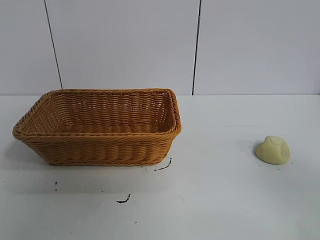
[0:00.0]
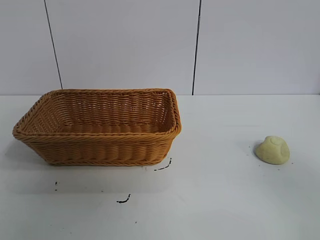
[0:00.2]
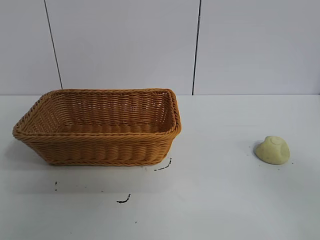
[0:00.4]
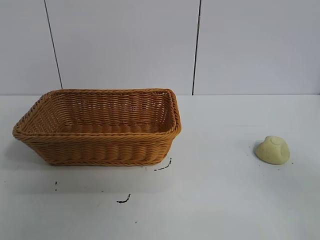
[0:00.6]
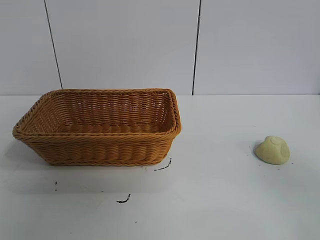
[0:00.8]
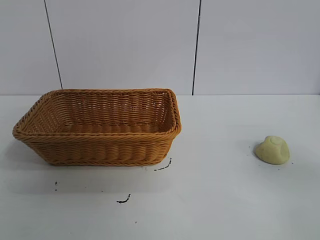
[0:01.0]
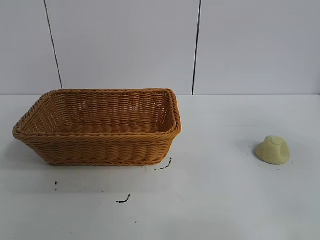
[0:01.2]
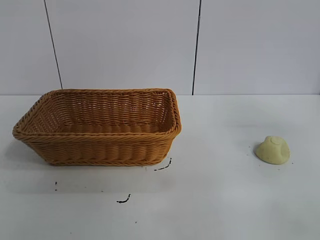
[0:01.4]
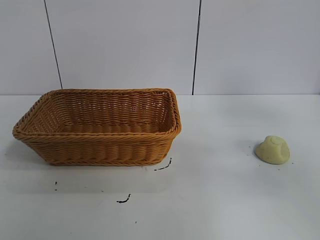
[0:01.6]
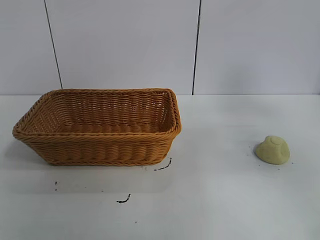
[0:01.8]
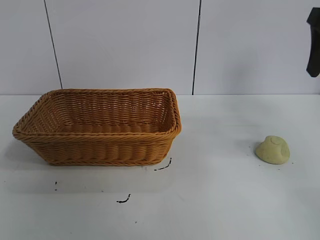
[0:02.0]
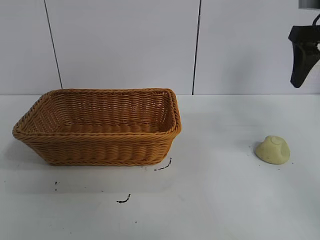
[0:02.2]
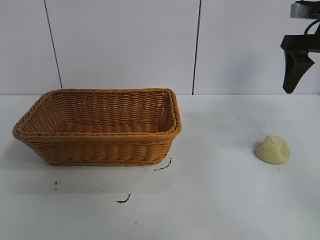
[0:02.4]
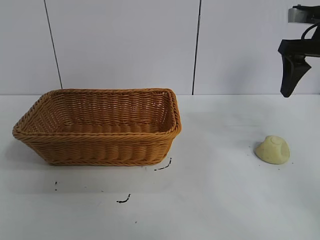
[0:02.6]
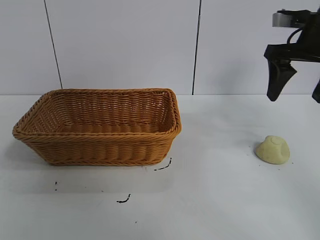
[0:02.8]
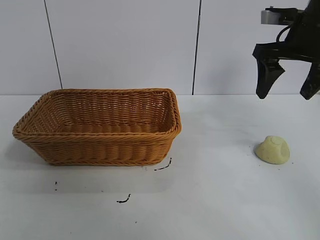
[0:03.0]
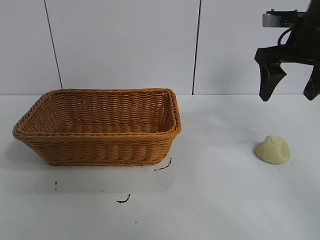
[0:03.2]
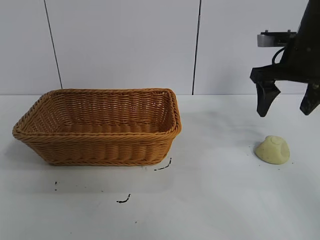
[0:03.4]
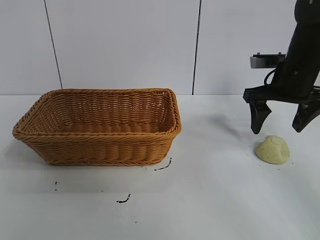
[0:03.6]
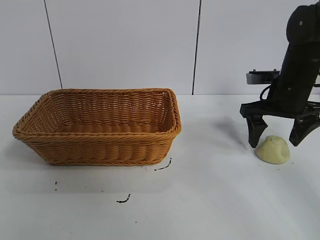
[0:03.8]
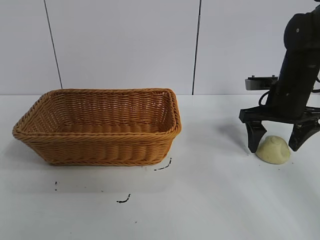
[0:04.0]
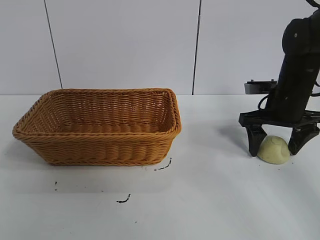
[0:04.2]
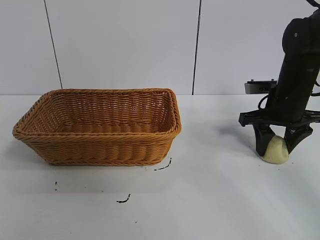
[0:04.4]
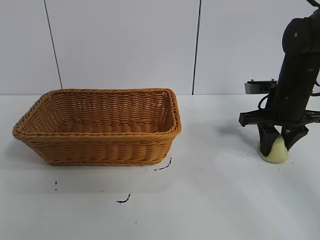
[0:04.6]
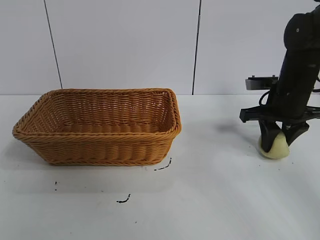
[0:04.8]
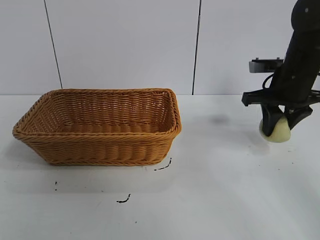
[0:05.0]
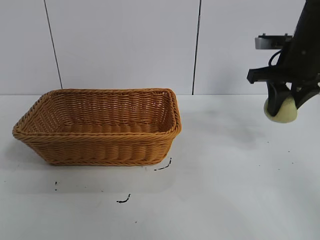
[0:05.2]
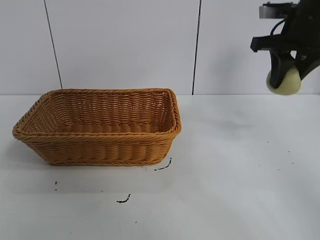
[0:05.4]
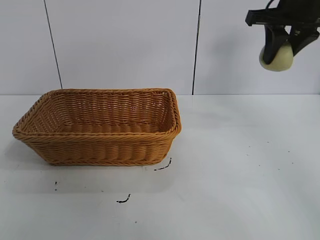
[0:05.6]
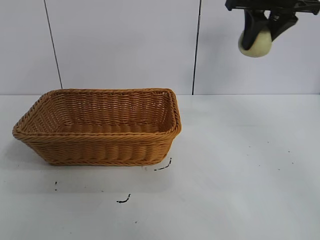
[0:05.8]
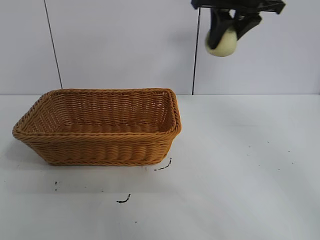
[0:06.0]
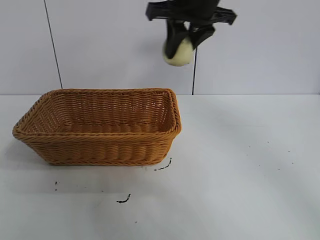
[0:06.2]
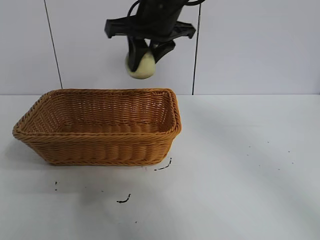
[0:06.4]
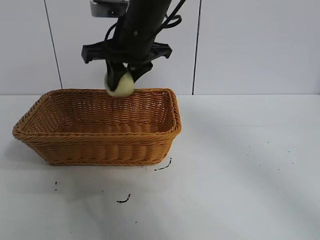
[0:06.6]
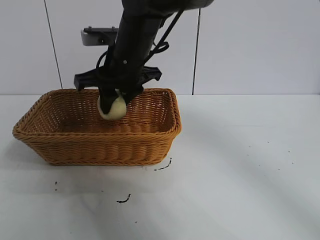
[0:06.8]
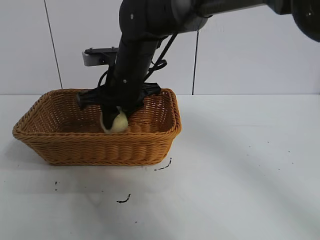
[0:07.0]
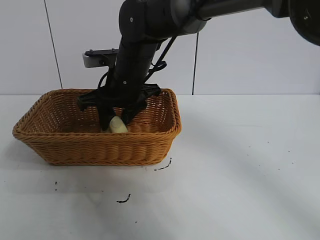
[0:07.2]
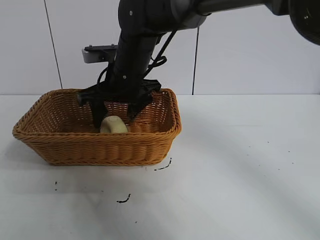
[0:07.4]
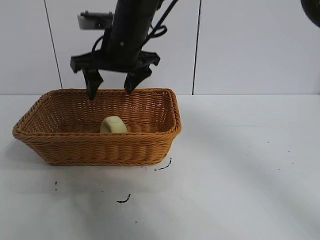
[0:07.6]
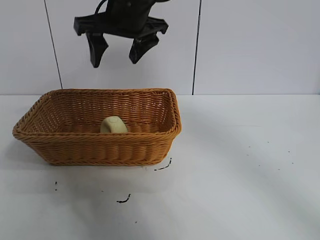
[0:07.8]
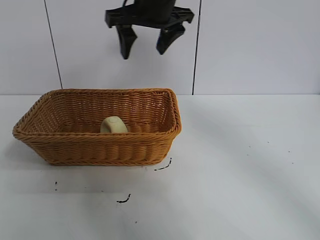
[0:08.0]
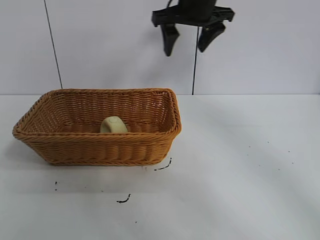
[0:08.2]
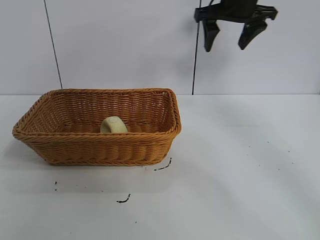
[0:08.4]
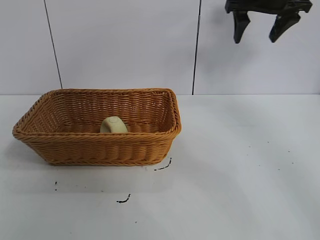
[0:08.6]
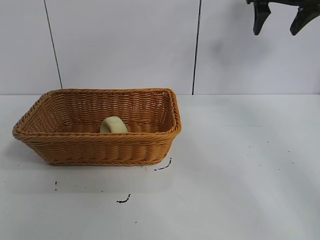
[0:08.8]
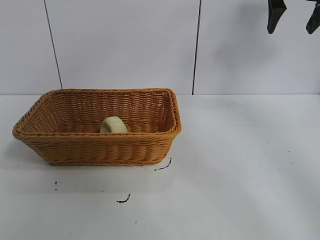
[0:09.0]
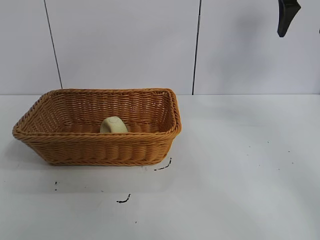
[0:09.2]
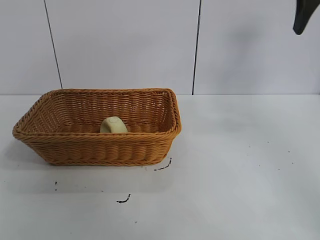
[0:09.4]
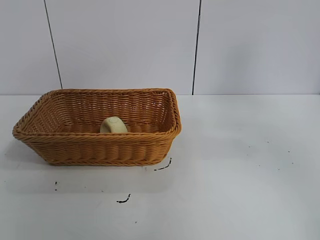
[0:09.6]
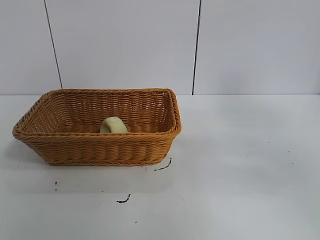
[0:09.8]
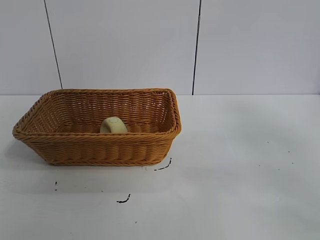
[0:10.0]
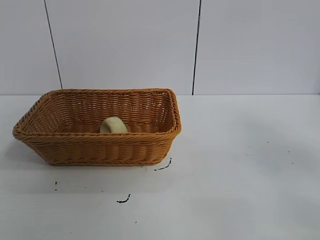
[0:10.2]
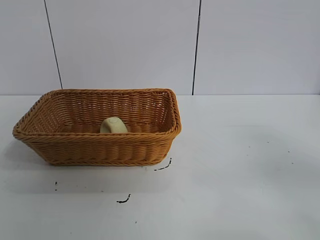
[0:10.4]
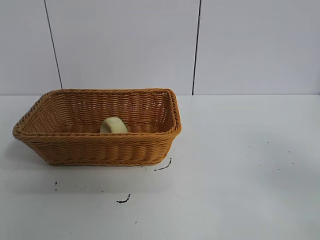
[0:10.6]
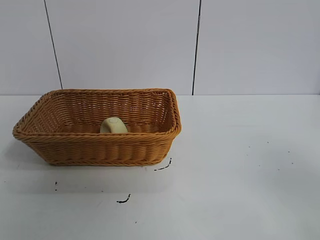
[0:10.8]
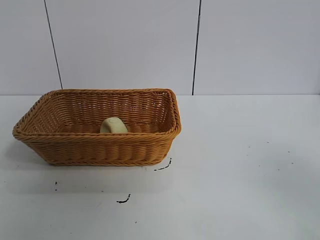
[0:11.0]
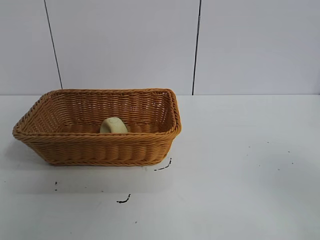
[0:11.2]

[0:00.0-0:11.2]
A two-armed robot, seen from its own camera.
Task of the whole recording: pick up the egg yolk pastry and put it into the basket.
Step, 0:00.8 to 0:04.4: Grasp egg yolk pastry with right gripper.
Step, 0:04.6 to 0:07.2: Place the egg yolk pastry in the basket with right gripper.

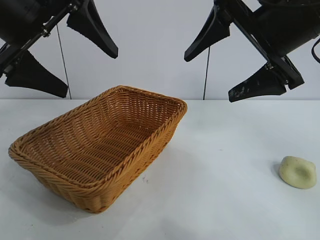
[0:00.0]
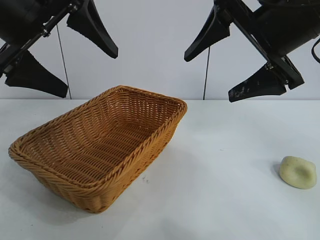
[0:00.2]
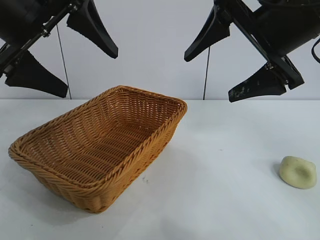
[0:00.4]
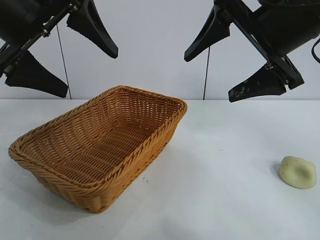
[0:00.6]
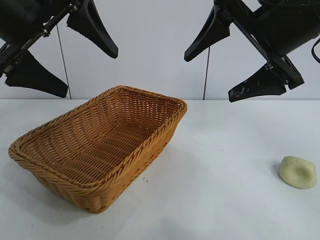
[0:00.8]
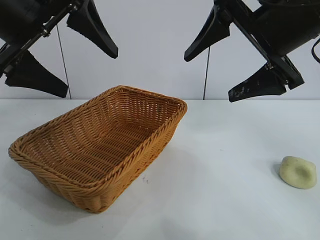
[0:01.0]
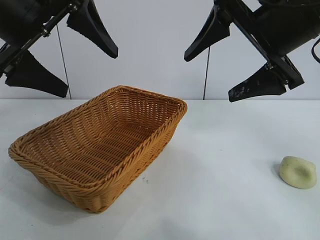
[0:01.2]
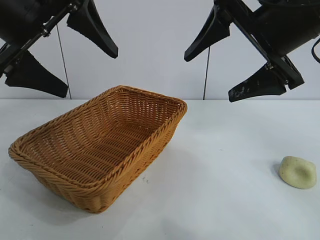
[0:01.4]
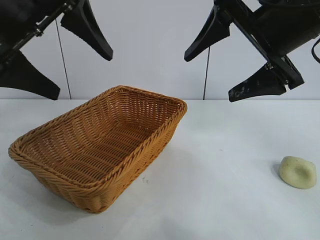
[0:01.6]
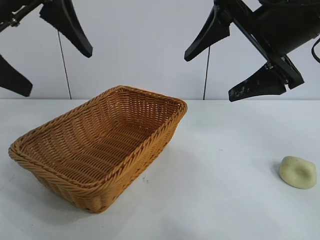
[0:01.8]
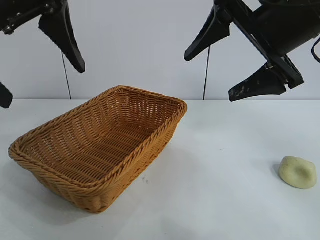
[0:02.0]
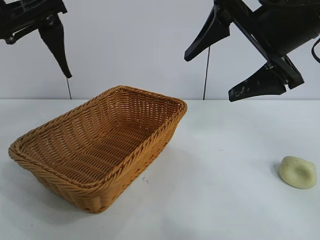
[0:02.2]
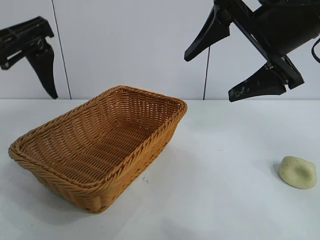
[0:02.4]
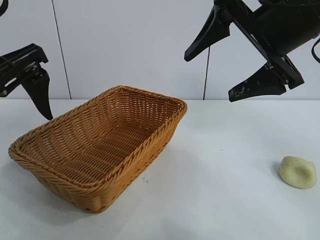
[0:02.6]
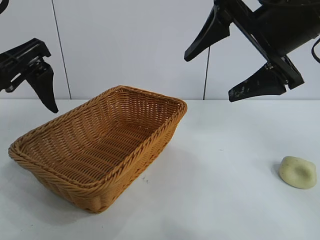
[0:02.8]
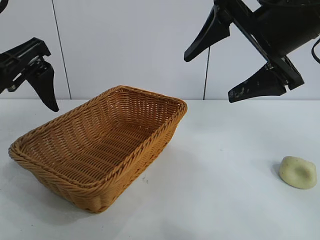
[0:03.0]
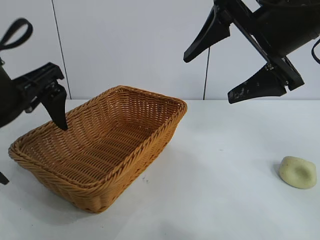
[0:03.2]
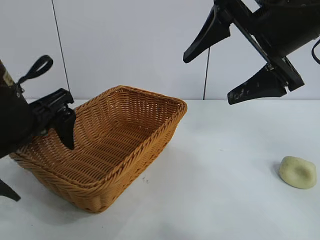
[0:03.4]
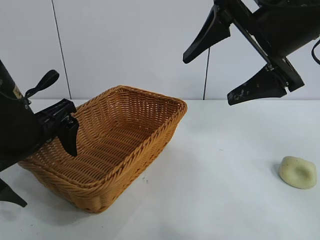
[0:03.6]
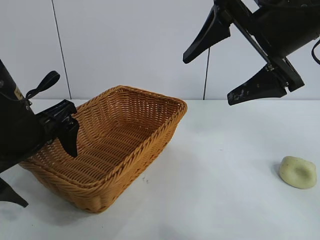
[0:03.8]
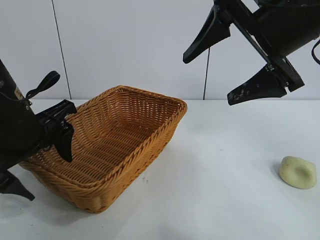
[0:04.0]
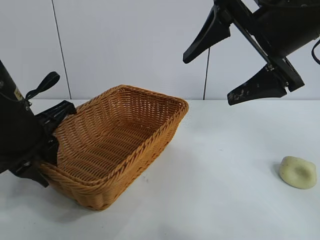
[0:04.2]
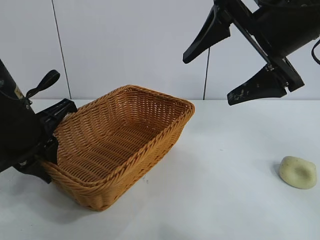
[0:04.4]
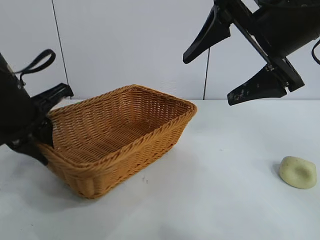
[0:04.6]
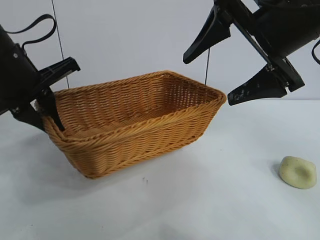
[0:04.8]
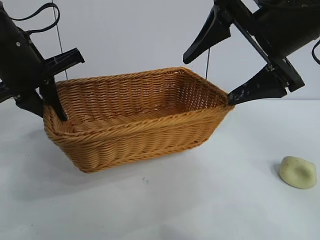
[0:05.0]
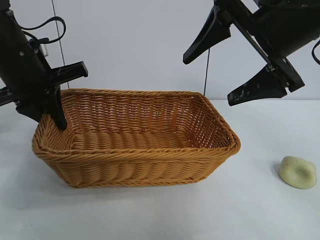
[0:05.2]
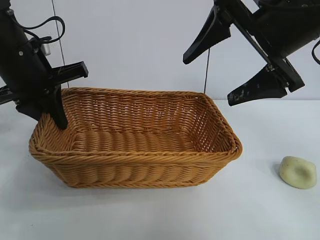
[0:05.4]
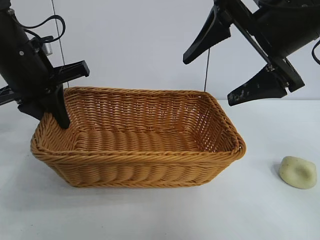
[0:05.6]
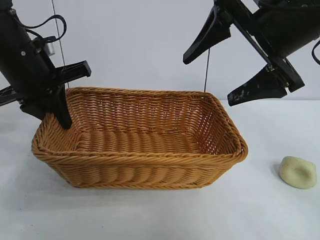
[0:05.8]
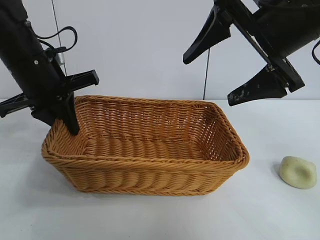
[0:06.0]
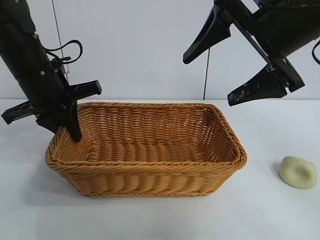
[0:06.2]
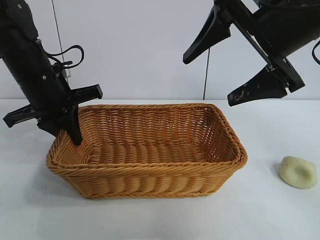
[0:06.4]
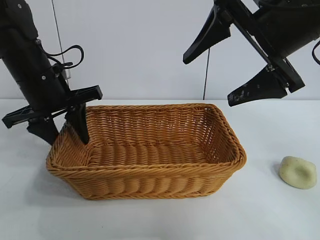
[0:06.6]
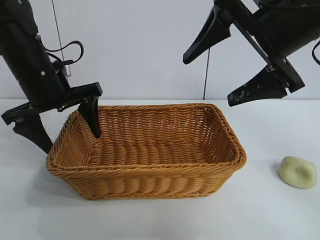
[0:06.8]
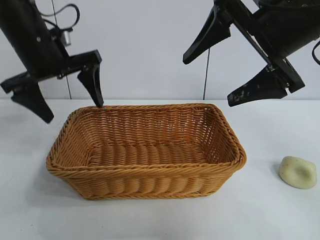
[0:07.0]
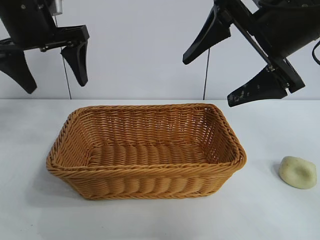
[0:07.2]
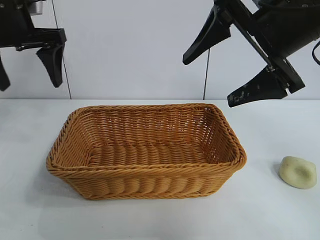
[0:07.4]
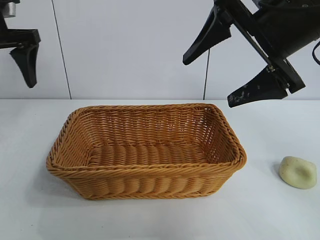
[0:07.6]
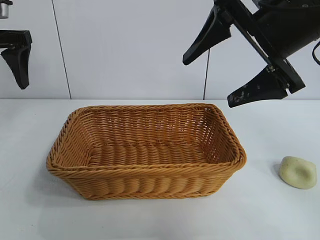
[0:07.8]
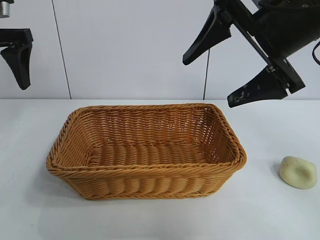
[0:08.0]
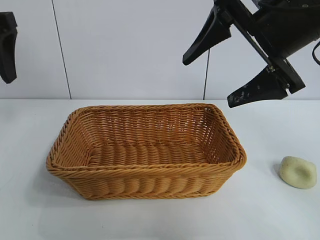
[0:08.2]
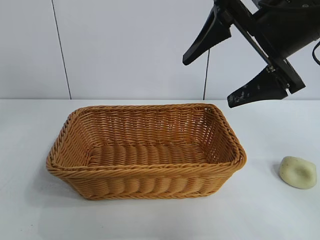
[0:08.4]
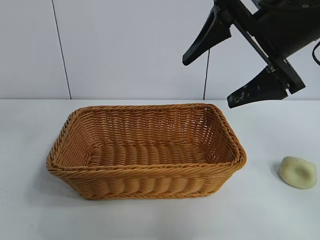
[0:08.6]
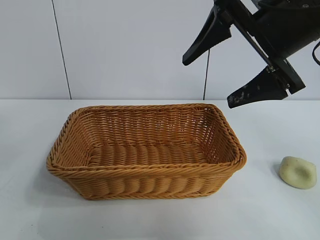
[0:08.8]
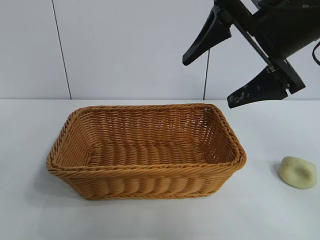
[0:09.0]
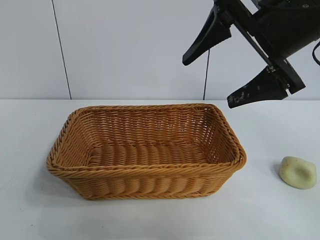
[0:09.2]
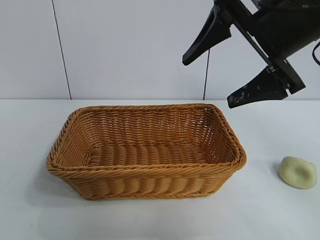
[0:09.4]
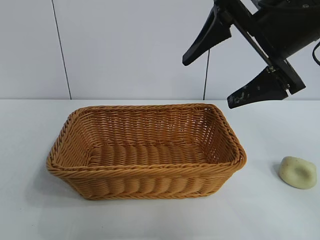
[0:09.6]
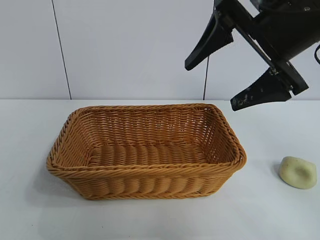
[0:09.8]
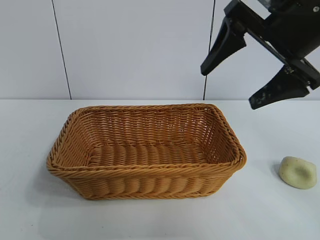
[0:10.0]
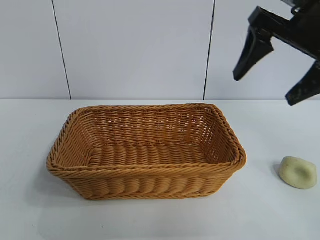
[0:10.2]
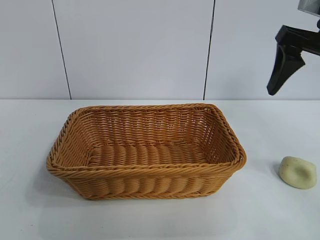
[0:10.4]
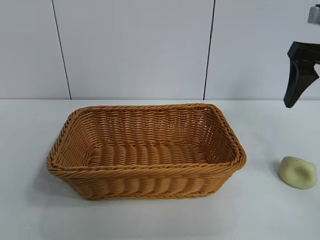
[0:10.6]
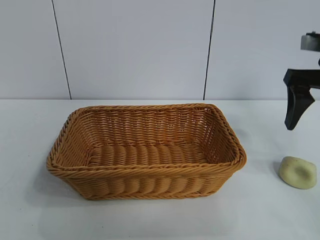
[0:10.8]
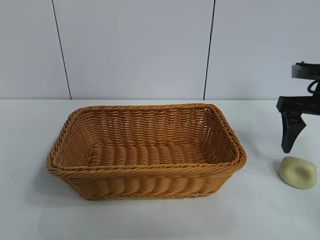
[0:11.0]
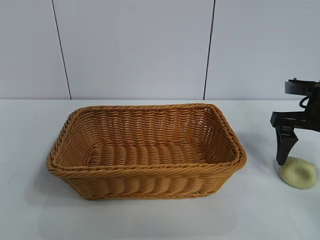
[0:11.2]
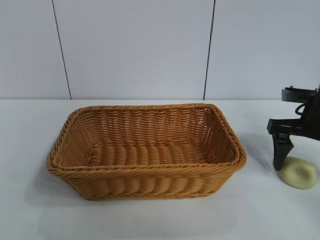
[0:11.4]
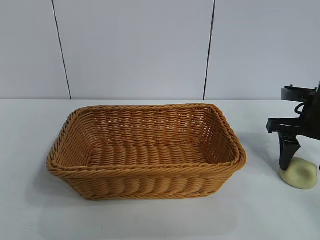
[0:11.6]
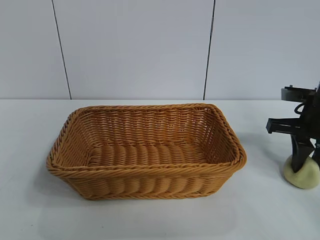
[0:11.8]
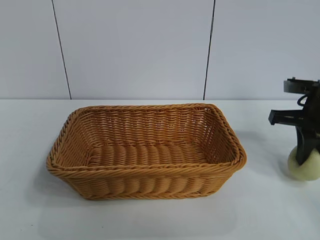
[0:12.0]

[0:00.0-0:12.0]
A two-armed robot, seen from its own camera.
Task of the whole recording: pick up the egg yolk pastry and put it into the basket.
Step, 0:01.4 to 0:04.2: Grasp the basket with left gripper.
Step, 0:04.4 to 0:06.6: Place the basket in the center of view with left gripper.
Step, 0:06.8 to 0:11.8: Grasp egg yolk pastry with right gripper.
